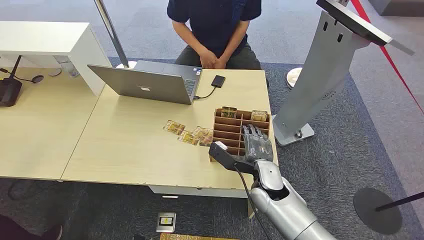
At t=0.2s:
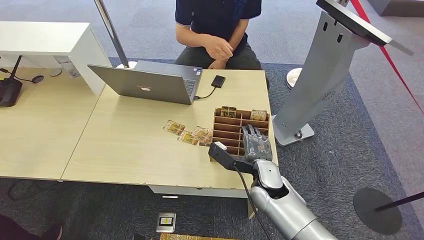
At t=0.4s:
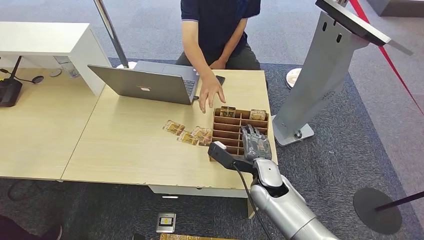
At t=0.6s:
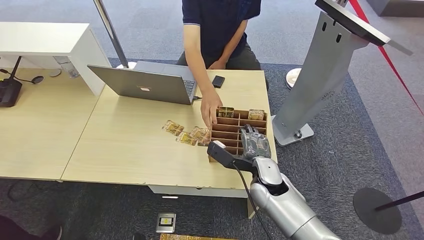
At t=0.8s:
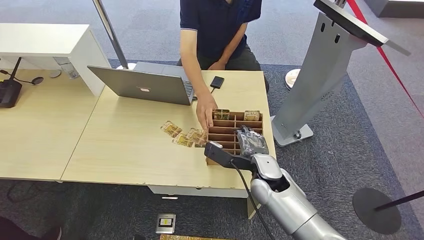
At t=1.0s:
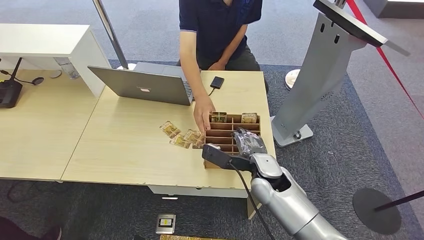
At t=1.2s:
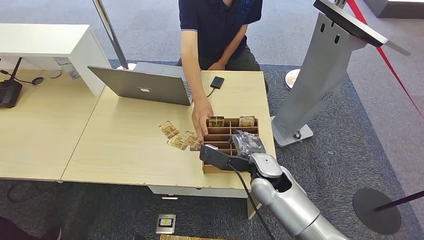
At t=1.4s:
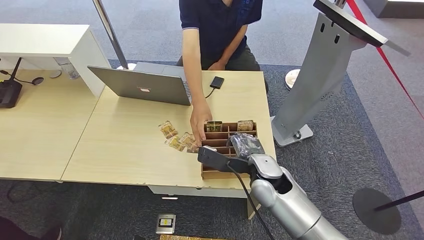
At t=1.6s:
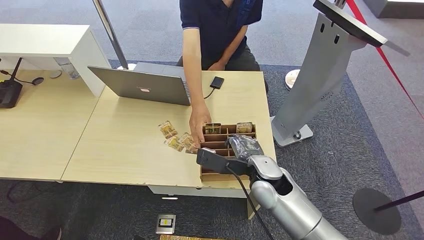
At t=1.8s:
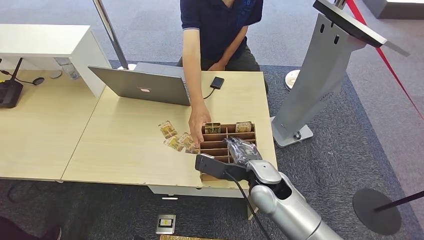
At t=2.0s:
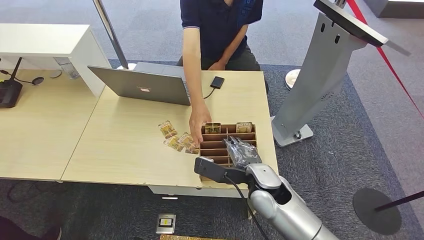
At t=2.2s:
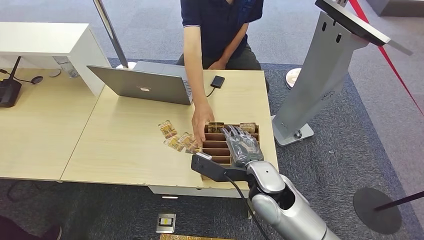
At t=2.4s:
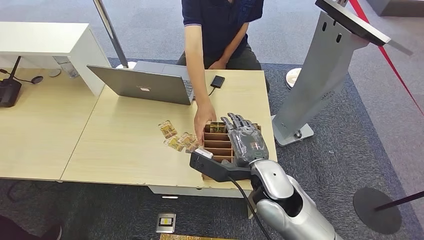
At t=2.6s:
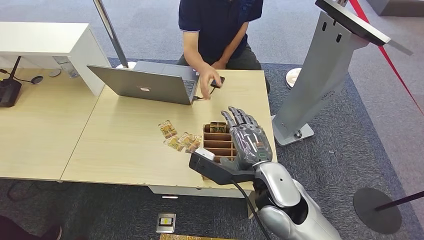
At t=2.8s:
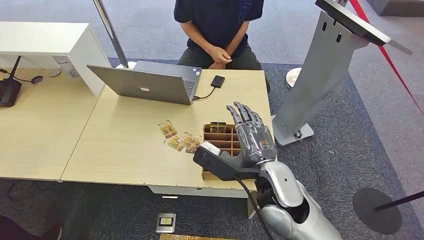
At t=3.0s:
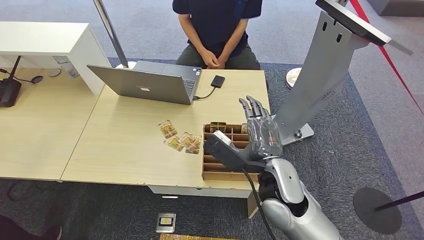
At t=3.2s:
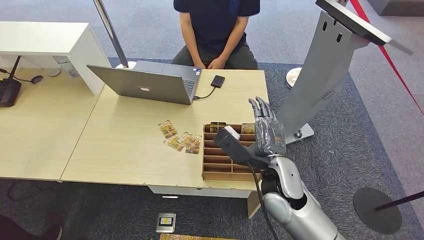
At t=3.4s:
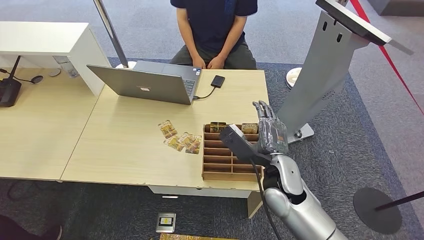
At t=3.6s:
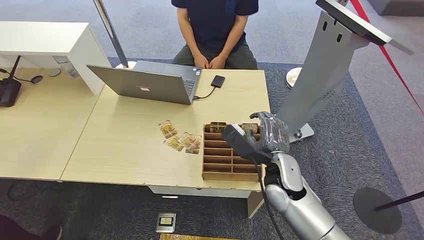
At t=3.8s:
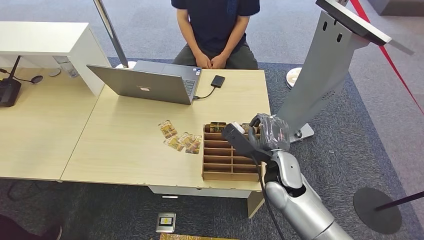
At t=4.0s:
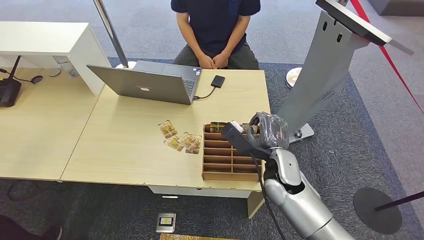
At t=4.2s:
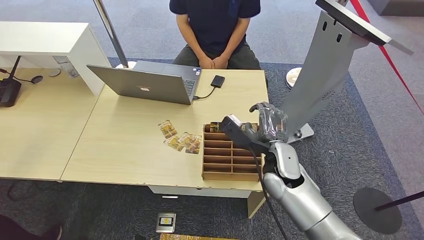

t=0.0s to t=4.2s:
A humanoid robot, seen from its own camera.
Step, t=0.0s to t=4.2s: Pick up the key card from the card box.
t=1.4s to t=2.8s: The right hand is displaced upward and backward by about 10 cm.
t=2.8s to t=4.2s: The right hand is displaced forward and downward by roughly 10 cm.
